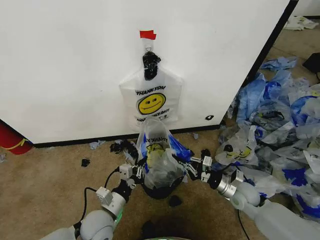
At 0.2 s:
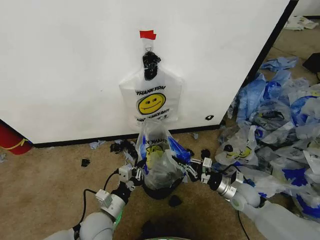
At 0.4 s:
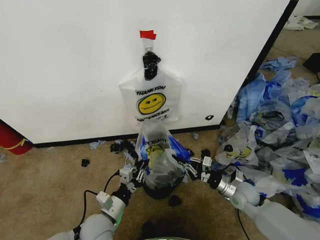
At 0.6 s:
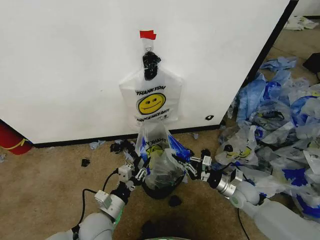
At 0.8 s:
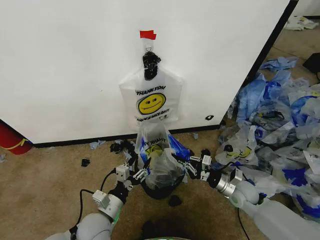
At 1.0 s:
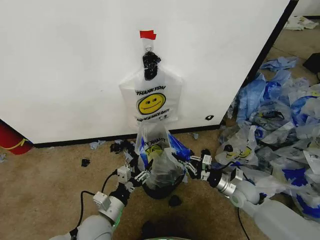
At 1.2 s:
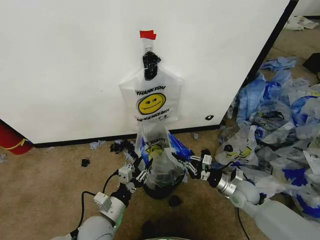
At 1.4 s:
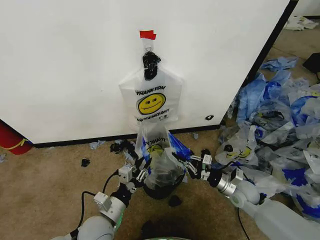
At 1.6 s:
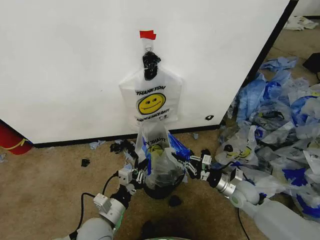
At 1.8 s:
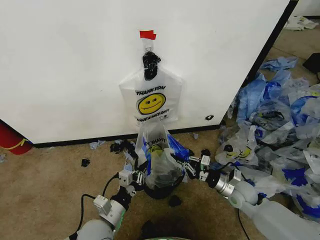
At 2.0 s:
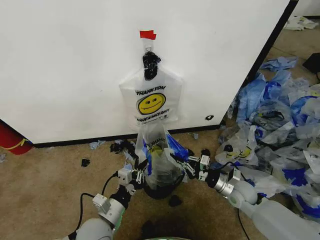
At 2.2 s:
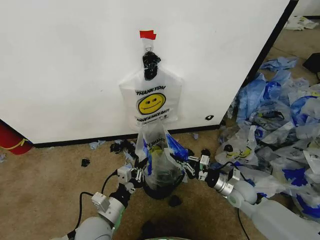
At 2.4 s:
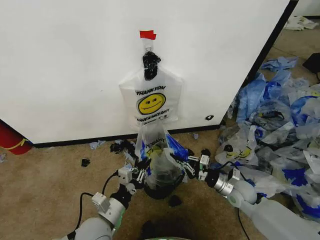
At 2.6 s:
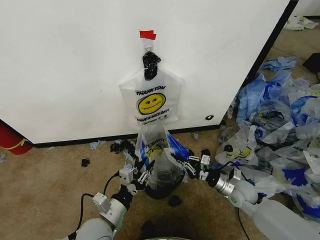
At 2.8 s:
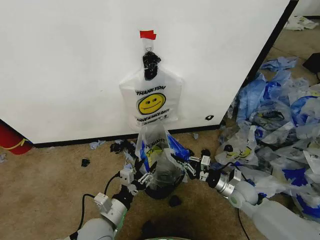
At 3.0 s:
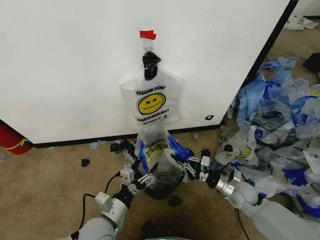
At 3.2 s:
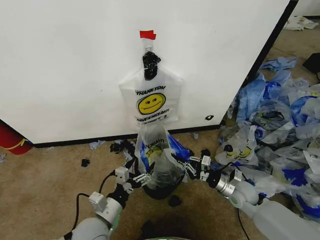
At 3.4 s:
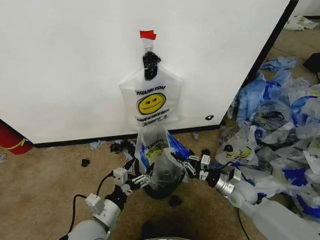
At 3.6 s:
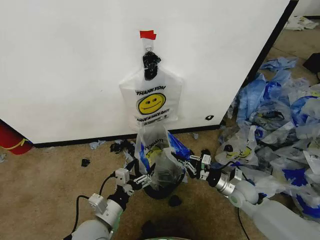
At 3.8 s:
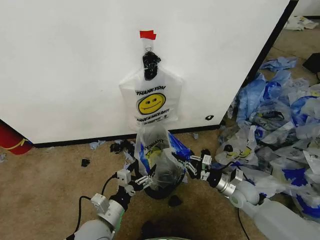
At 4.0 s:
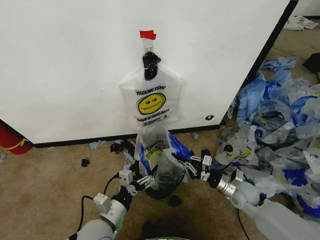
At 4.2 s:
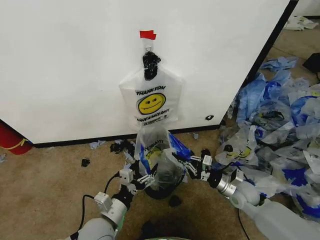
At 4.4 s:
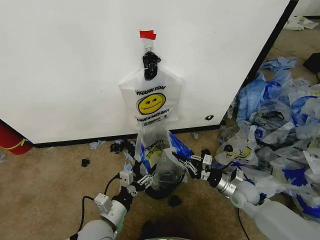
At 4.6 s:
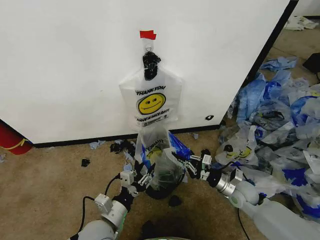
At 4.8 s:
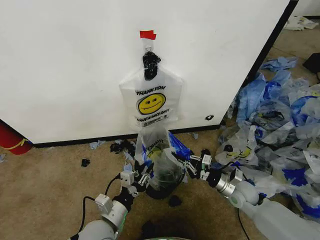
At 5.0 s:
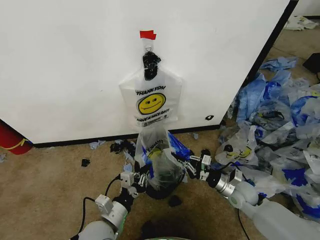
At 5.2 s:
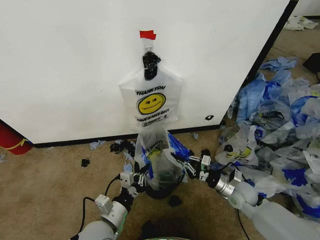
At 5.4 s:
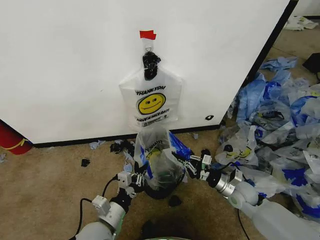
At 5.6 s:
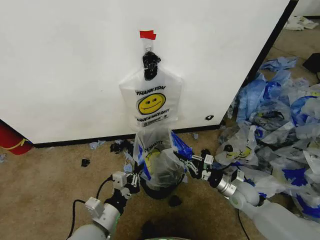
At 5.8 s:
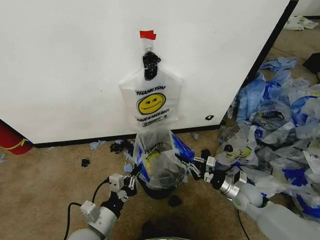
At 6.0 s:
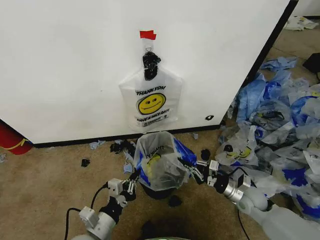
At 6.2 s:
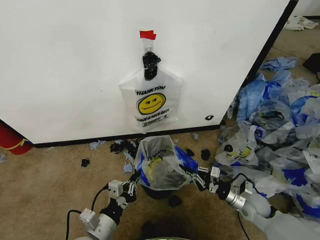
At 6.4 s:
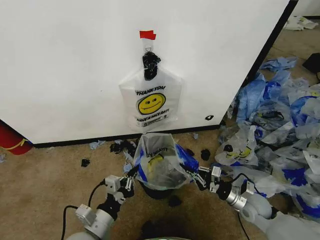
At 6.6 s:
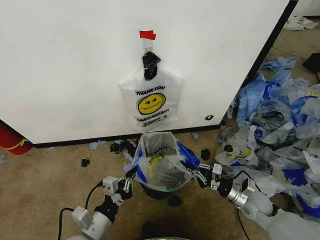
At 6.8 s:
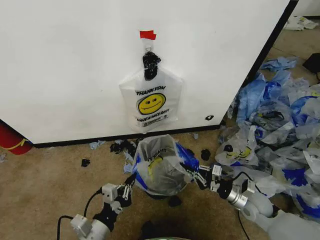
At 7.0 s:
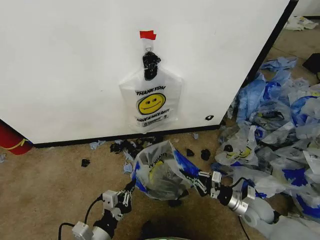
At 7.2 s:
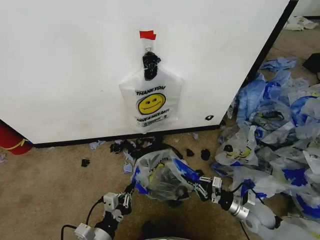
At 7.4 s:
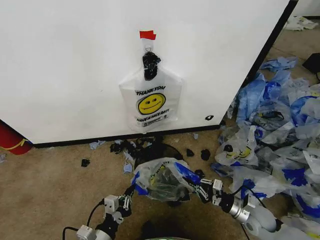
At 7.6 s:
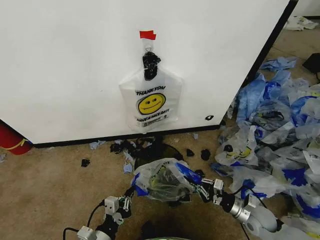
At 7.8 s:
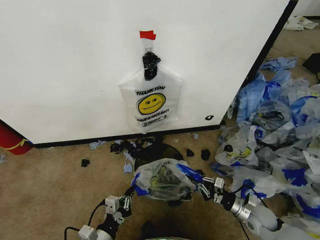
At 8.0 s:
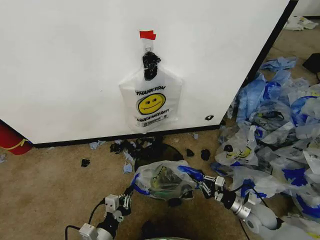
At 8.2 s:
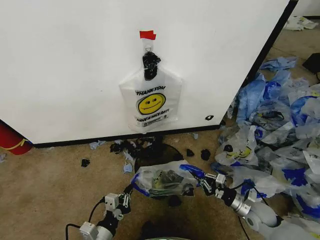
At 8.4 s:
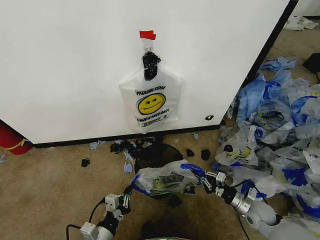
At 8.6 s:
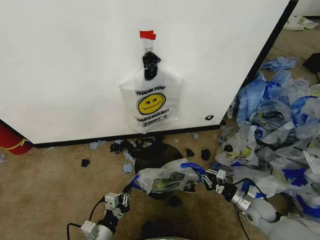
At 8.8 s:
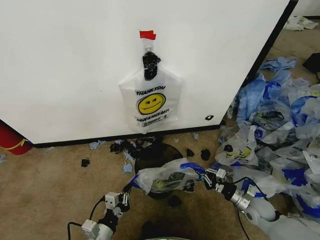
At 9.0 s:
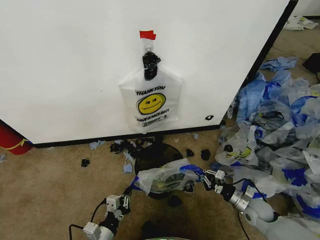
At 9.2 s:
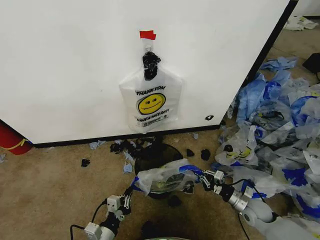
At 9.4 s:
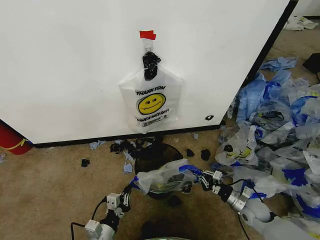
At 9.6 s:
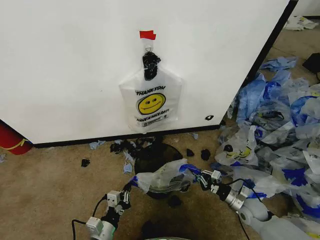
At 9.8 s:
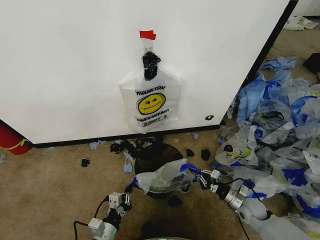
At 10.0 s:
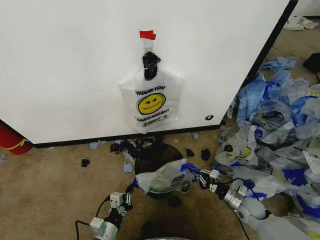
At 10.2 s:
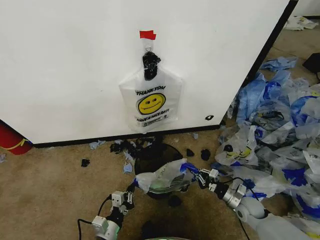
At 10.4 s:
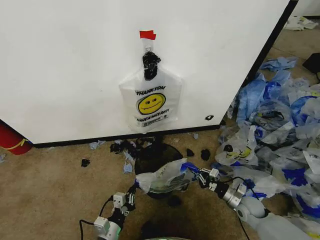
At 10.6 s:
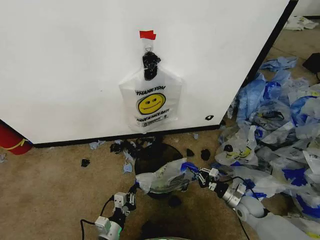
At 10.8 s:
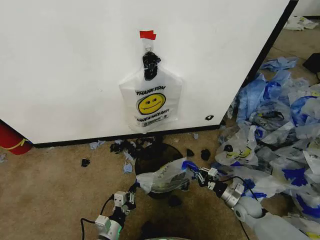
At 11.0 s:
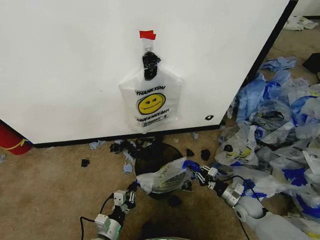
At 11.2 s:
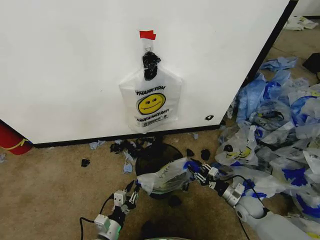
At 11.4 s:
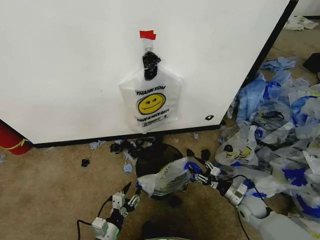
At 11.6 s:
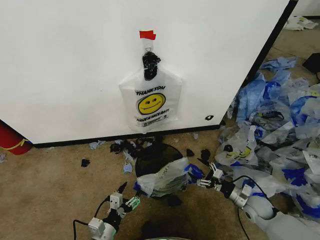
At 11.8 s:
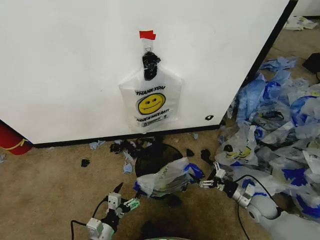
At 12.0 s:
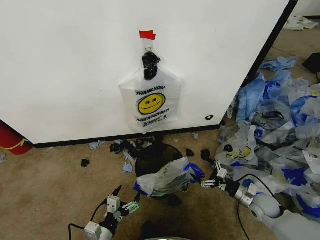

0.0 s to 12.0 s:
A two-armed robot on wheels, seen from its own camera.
Task of the whole recording: Pick up the garbage bag from the wall and place it over the trash bin.
0.0 to 1.6 s: The left gripper opens, then closes once more.
1.6 to 3.0 s: The left gripper opens.
3.0 to 4.4 s: There are only small adjustments of the grippers.
4.4 to 6.0 s: The left gripper closes.
6.0 to 7.6 s: The left gripper moves about 5 cm. Meanwhile the right gripper goes roughly 5 cm backward.
7.6 to 9.0 s: The grippers move only a little.
9.0 to 10.4 s: The grippers make only small movements.
10.4 to 12.0 s: The left gripper opens up; the right gripper shifts by about 5 cm, and opens.

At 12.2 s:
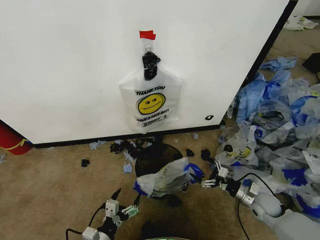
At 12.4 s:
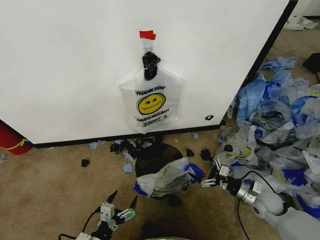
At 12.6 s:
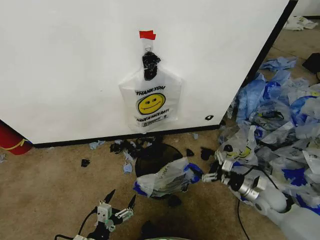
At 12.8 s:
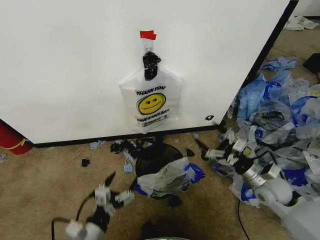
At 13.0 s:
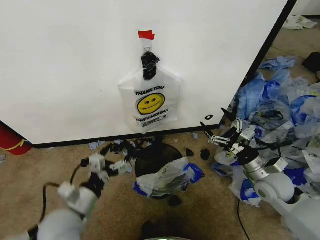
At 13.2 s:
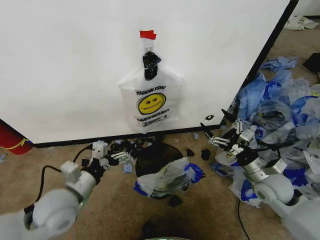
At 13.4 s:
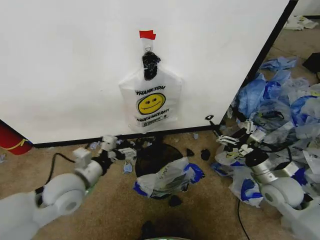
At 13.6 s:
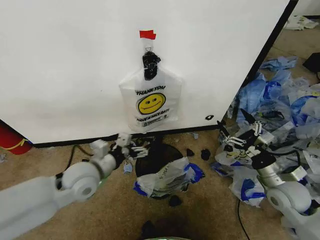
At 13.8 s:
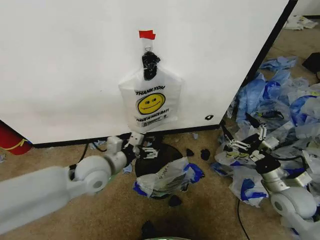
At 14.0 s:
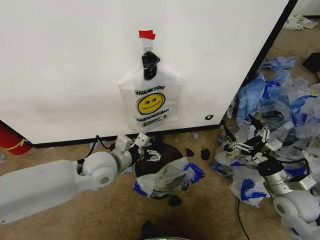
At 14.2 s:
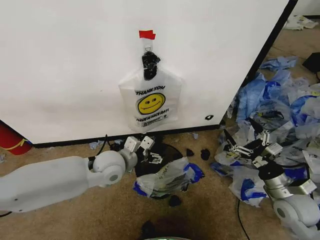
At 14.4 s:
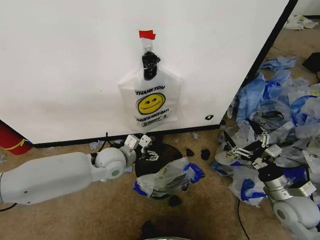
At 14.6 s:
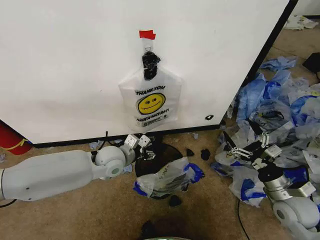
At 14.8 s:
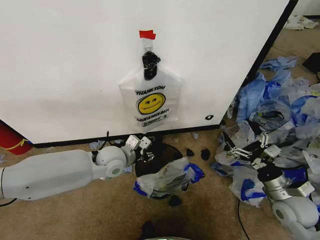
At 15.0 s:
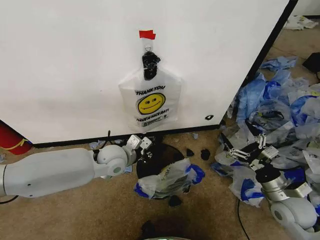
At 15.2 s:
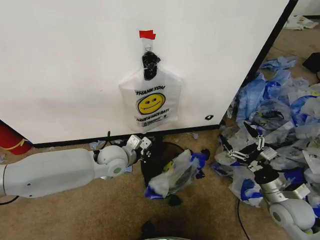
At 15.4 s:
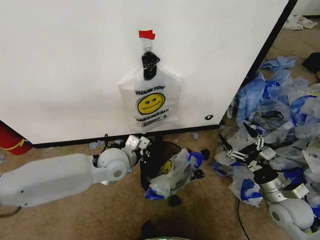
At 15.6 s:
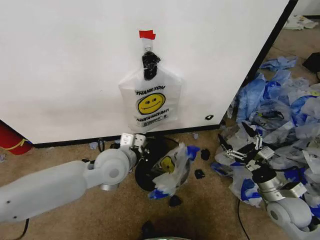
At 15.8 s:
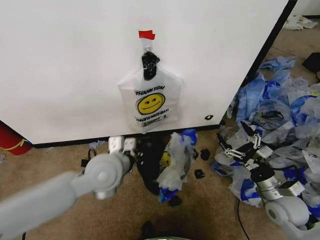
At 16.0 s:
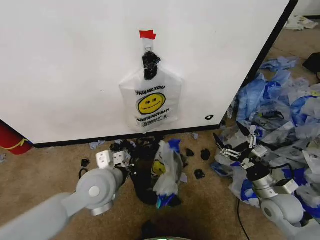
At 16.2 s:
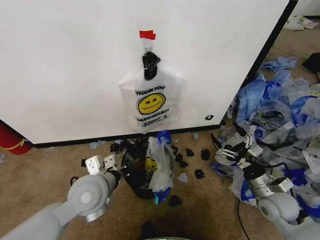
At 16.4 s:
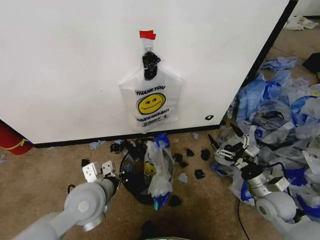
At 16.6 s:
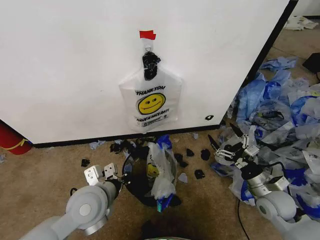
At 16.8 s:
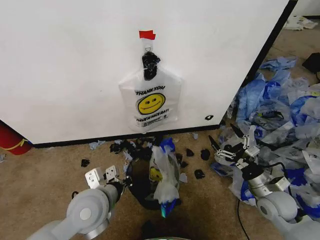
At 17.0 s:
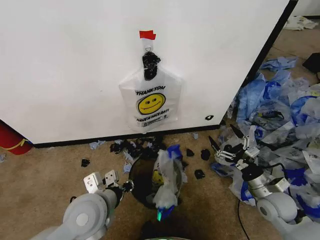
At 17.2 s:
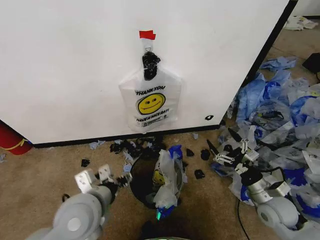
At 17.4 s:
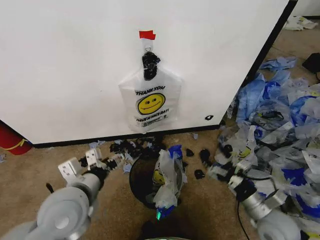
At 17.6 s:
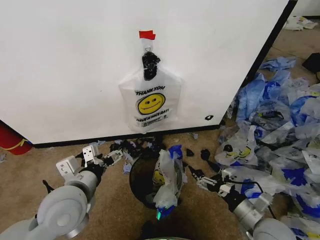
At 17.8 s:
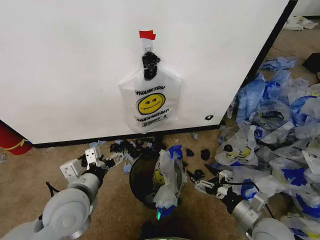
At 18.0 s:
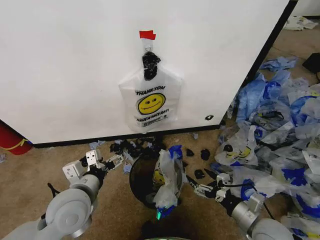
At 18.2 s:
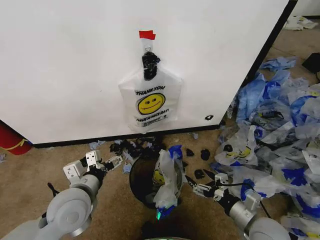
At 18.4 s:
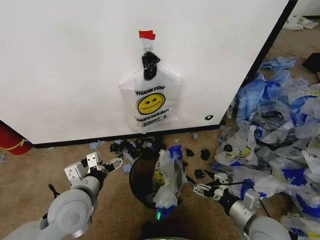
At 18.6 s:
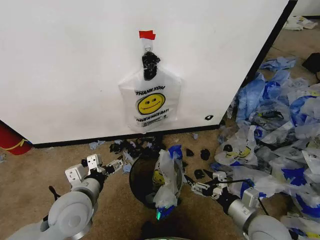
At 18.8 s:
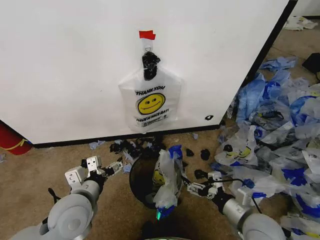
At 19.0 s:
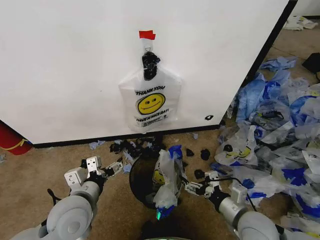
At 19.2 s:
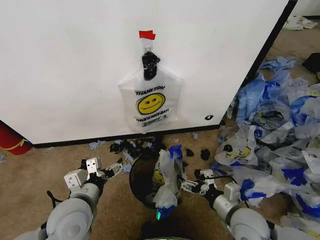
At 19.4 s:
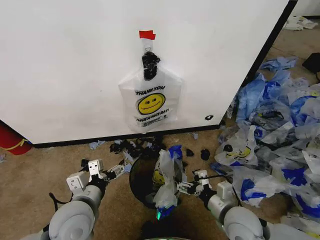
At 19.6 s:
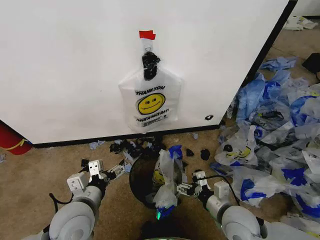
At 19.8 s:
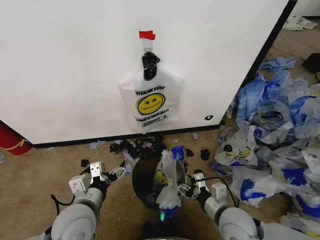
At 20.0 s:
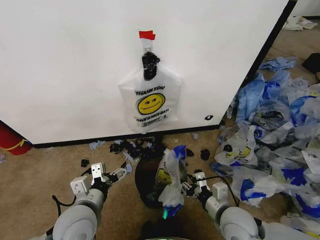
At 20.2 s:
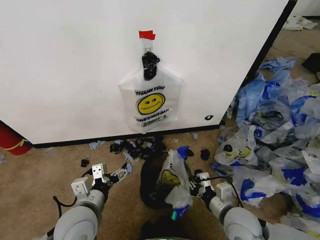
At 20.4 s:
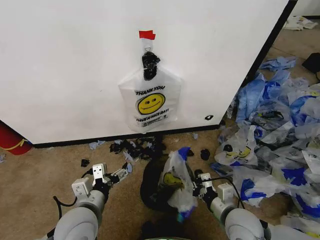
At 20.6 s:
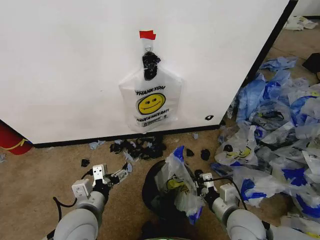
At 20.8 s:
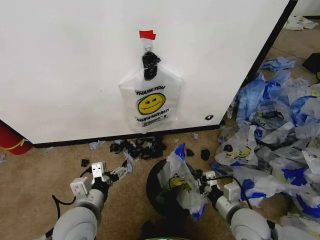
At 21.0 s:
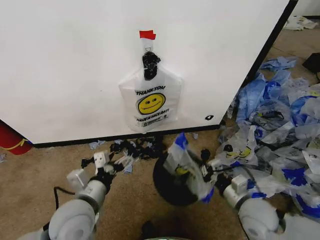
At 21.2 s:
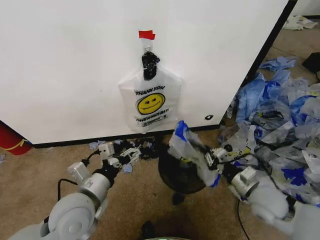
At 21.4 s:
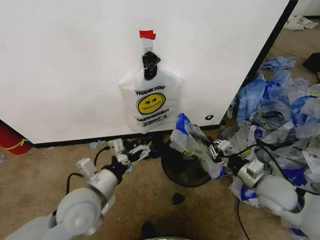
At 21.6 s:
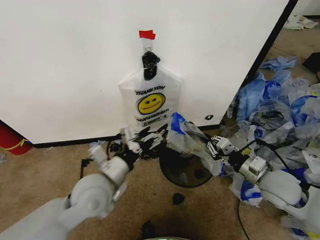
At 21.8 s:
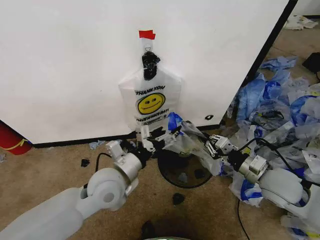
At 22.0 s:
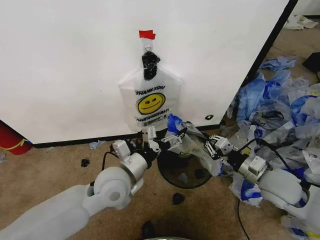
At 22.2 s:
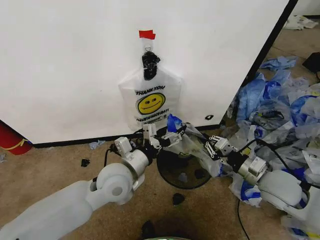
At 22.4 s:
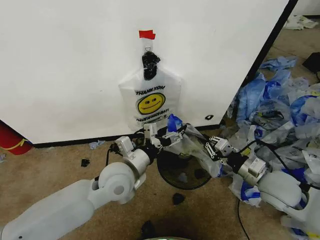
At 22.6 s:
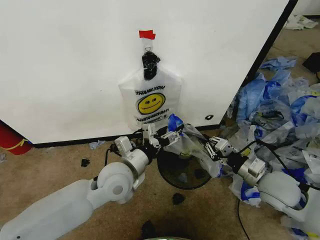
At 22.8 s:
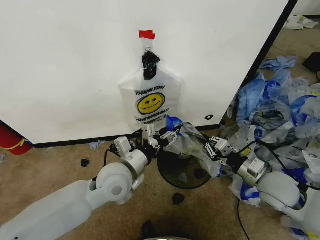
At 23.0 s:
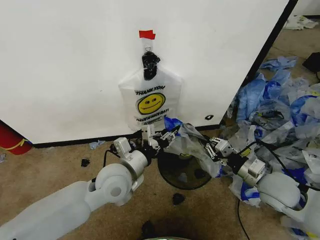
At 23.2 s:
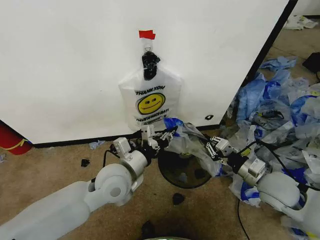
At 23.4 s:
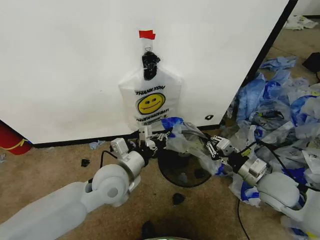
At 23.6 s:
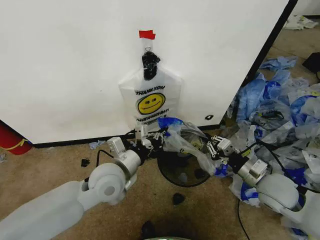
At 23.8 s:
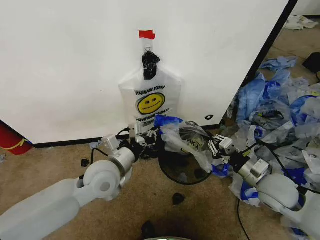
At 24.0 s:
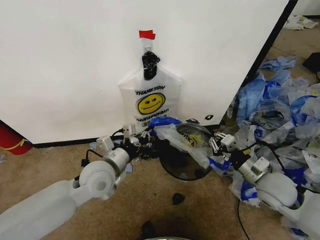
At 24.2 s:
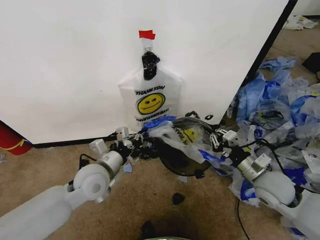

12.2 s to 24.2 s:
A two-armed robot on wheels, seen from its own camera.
Task of the whole recording: Pick up the garbage bag from the wall and place it over the trash bin.
12.2 to 13.8 s: The left gripper heads upward and forward, covering about 30 cm, while the right gripper heads upward, covering some 15 cm.
13.8 to 15.2 s: The left gripper is displaced forward by some 5 cm, and closes.
15.2 to 16.6 s: The left gripper moves backward, some 15 cm.
16.6 to 18.2 s: The right gripper moves backward and to the left, about 10 cm, while the left gripper opens its fingers.
18.2 to 19.8 s: The right gripper is displaced to the left by approximately 10 cm.
19.8 to 21.2 s: The right gripper heads to the right and forward, covering some 10 cm, and closes.
21.2 to 22.6 s: The left gripper heads to the right and forward, covering about 10 cm.
22.6 to 24.2 s: The left gripper shifts about 5 cm to the left, and closes up.
